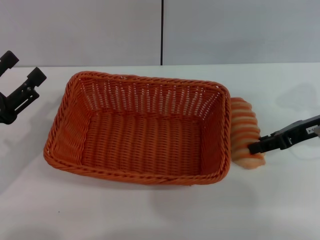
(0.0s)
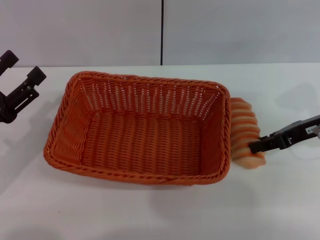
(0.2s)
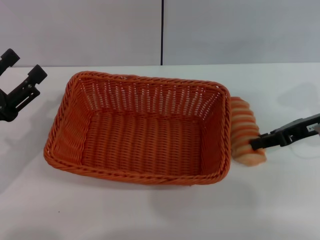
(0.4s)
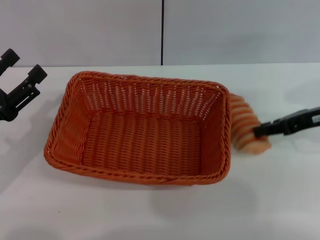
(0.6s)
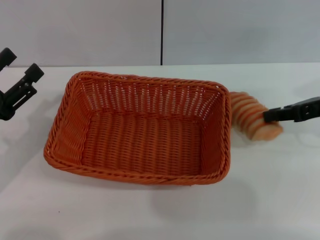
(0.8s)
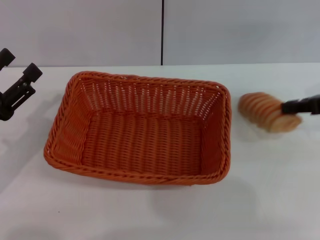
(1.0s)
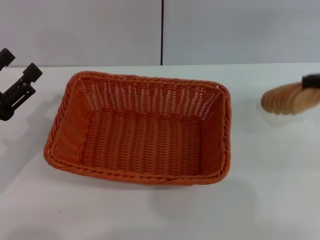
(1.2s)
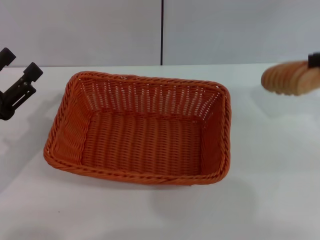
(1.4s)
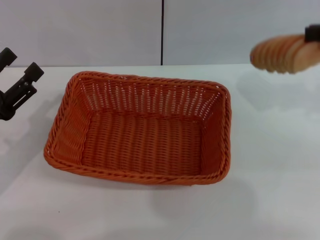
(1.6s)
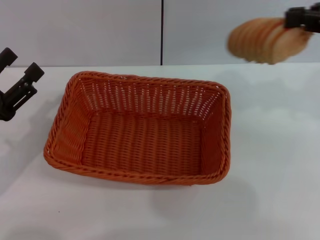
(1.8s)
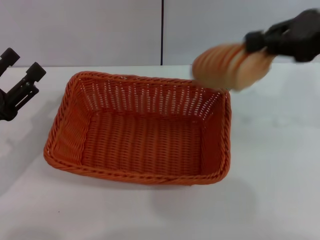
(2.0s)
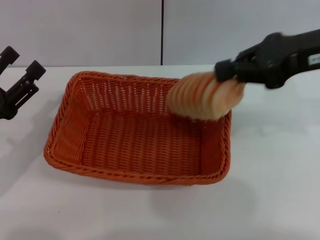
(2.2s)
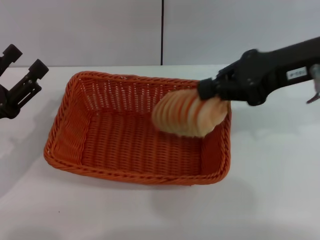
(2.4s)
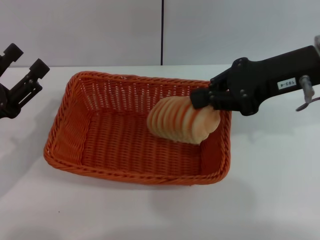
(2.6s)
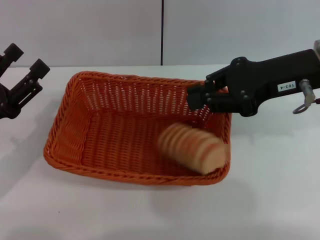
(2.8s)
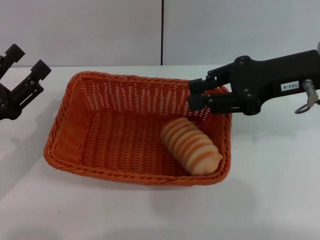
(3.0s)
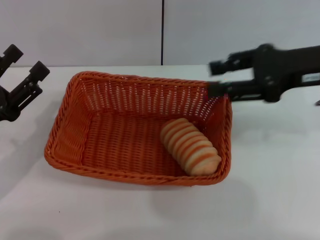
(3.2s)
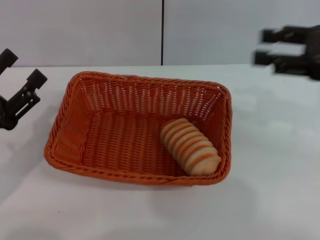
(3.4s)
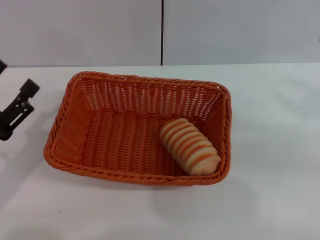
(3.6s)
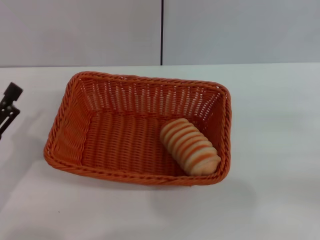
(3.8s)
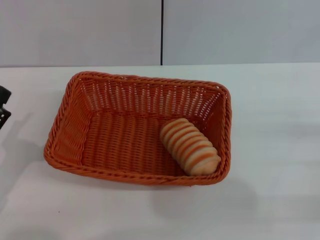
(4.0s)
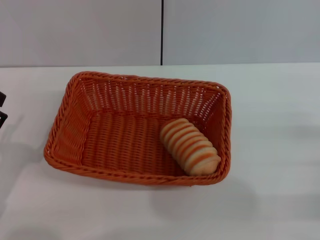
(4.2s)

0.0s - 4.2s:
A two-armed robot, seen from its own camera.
Step, 1.4s - 2.8s: Place the long bread into the light basket with the right gripper.
0.0s - 1.4s: The right gripper shifts about 15 cm upward and to the right, and closes up.
1.4s - 2.8s: The right gripper heads to the left, covering about 10 cm.
2.8s - 4.2s: The right gripper travels to the right, downward and backward by some 25 cm, and opens up. Meanwhile the left gripper heads backward, covering roughly 5 cm.
